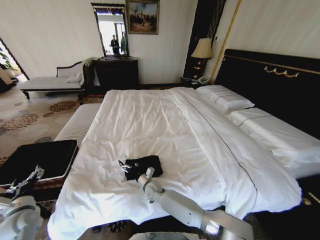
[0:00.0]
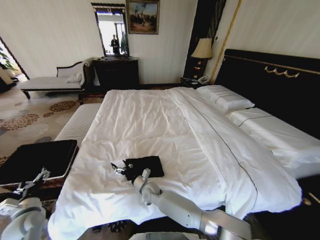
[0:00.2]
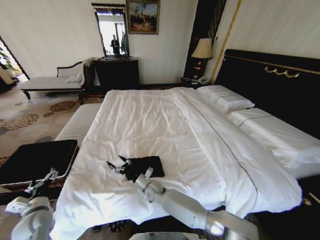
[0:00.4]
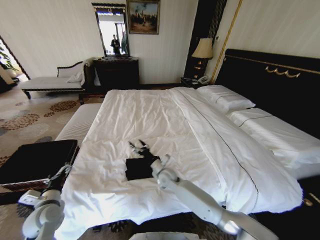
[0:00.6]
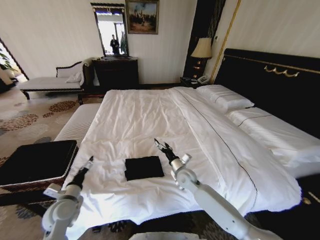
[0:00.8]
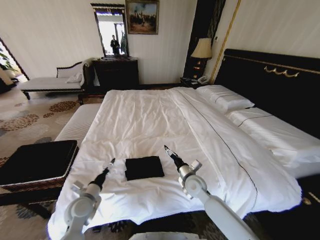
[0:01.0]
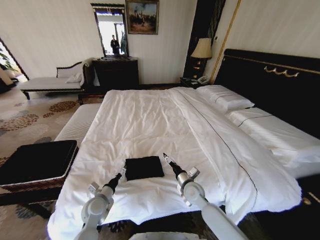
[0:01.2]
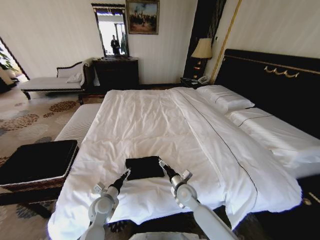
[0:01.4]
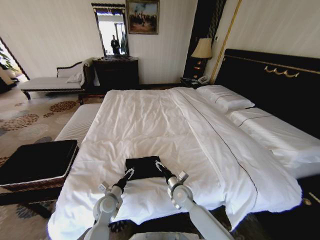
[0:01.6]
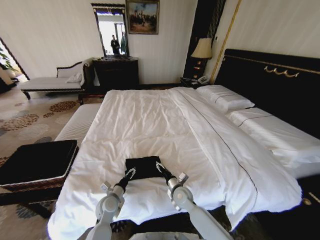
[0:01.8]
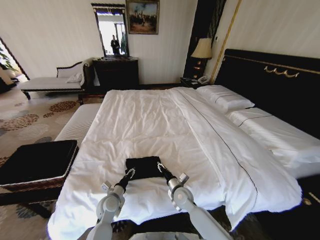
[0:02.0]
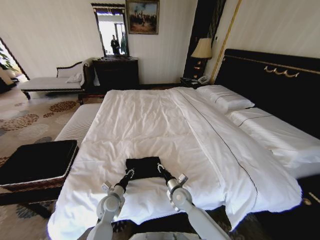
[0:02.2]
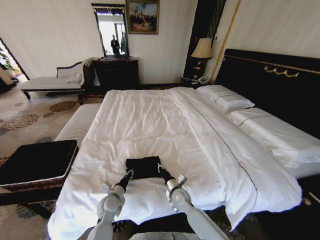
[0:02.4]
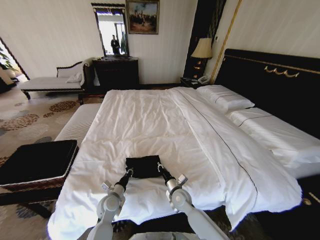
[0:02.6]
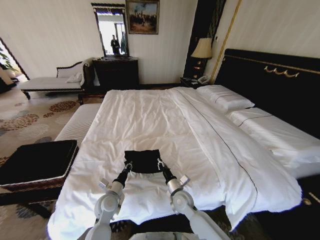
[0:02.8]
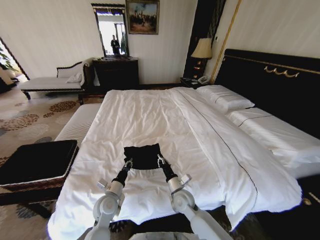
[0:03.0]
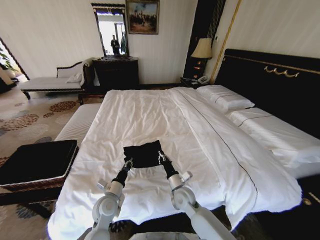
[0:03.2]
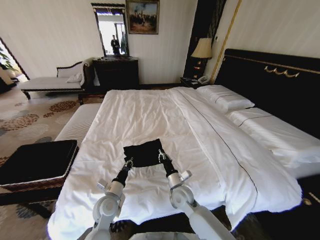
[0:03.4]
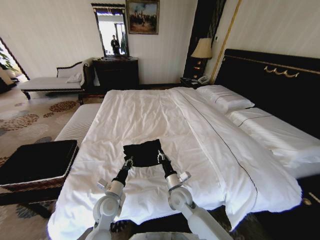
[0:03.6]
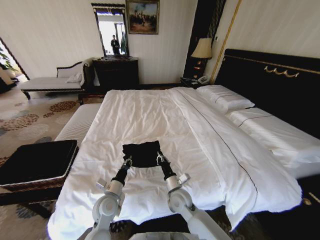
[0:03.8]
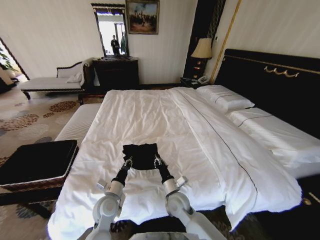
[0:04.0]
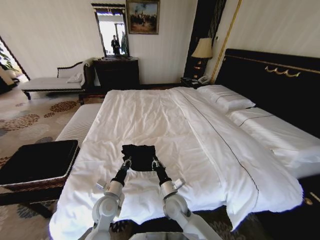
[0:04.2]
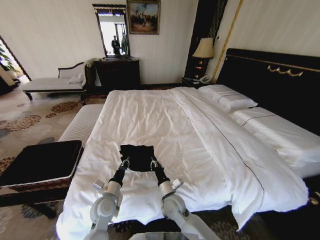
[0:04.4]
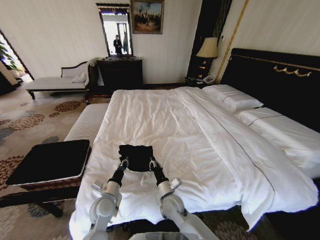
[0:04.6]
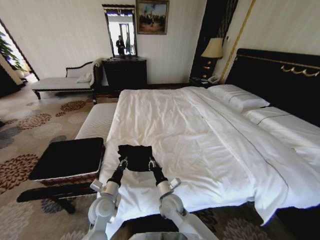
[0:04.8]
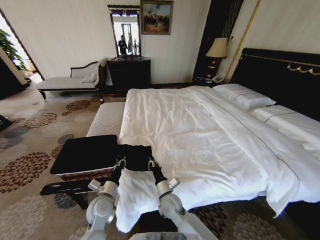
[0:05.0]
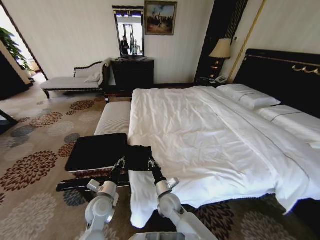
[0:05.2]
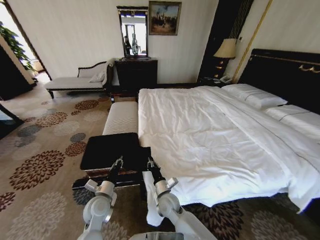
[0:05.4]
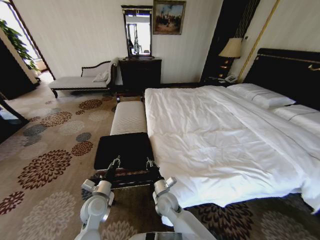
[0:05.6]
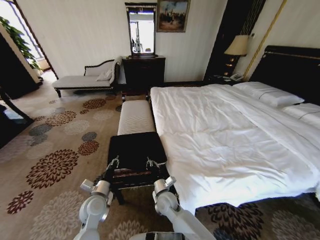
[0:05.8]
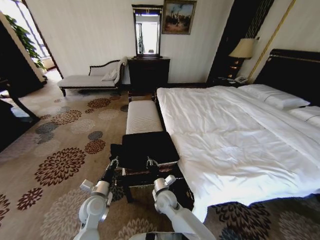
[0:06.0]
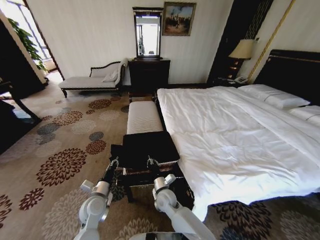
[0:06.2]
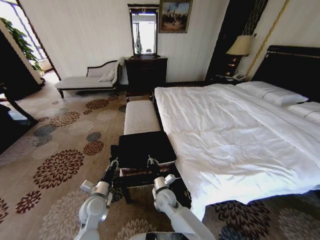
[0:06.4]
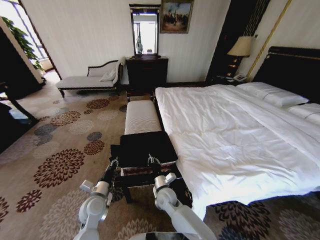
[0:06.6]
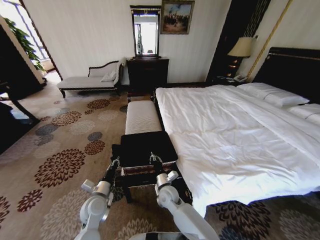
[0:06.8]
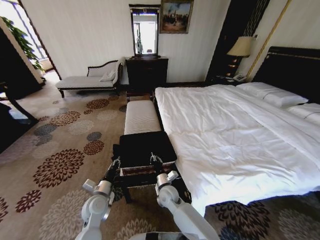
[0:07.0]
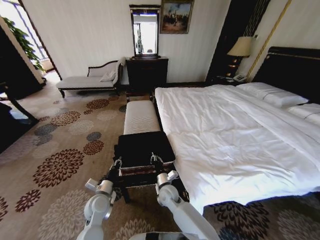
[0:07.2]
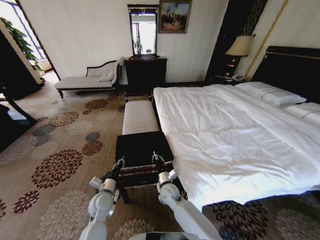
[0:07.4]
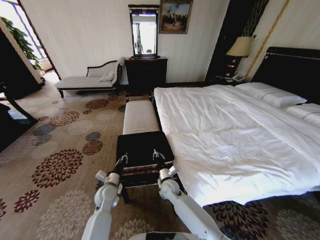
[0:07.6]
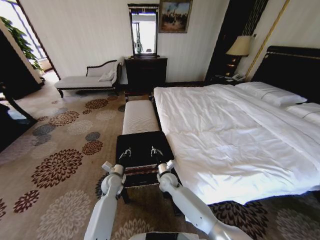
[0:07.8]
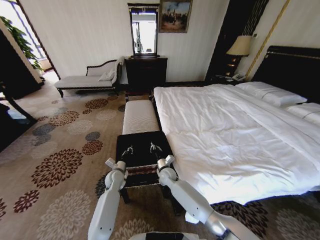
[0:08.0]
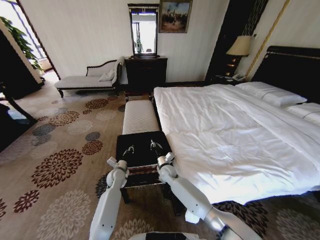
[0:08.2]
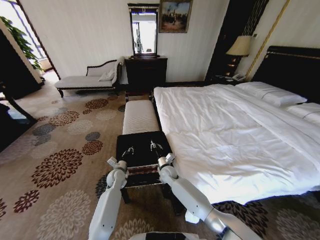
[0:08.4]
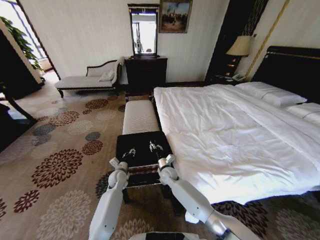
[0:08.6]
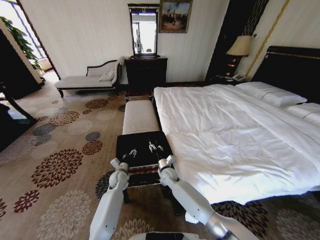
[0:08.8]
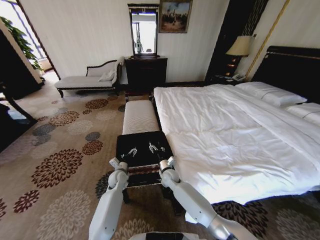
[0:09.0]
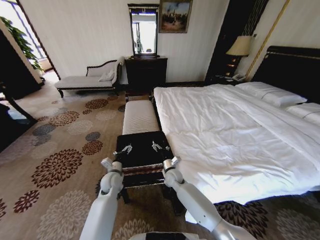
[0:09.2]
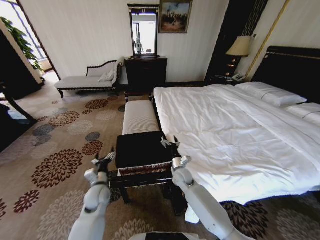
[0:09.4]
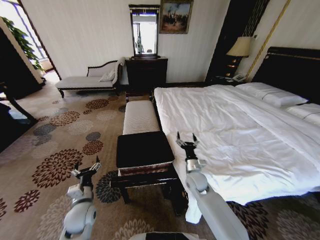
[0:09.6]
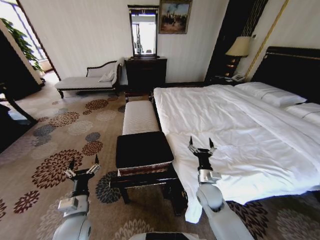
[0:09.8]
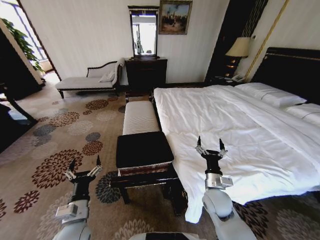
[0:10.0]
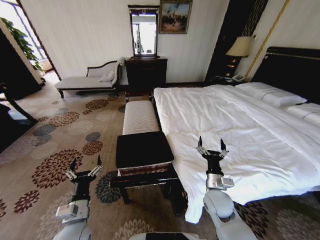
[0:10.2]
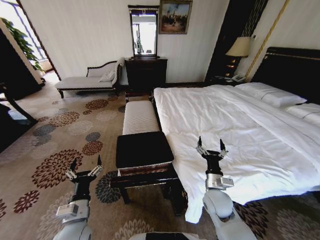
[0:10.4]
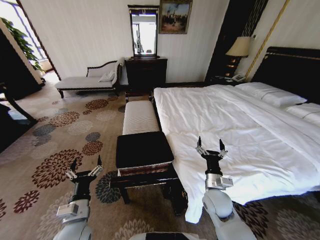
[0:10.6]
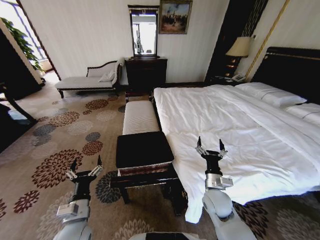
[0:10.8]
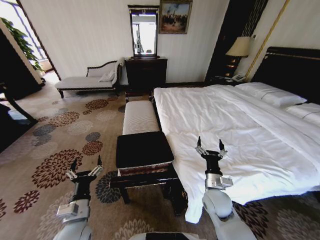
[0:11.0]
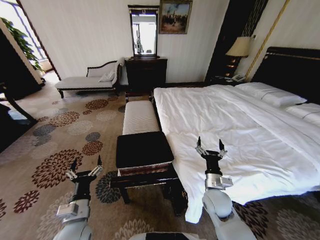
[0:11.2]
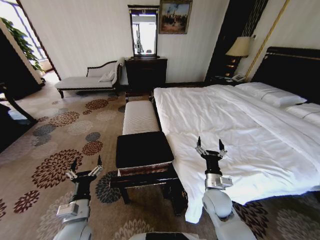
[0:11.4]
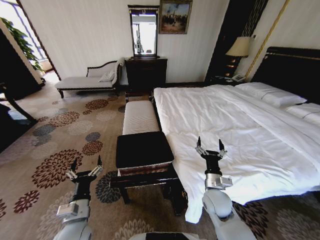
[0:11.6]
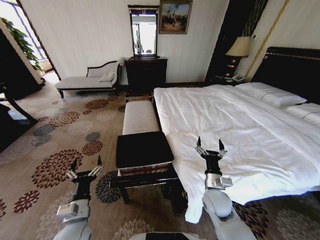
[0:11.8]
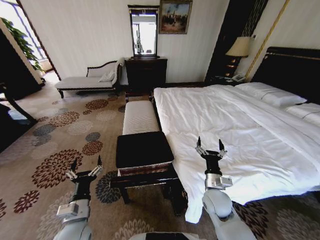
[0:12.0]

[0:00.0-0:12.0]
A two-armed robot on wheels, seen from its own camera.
Task of the whole recording: Fold the clothes on the bed and place them into the basket.
0:00.0 to 0:01.6: The right gripper shifts some 15 cm to the right. Meanwhile the left gripper heads to the right, covering some 25 cm.
0:01.6 to 0:03.0: The left gripper closes, while the right gripper closes up.
0:03.0 to 0:04.4: The right gripper changes place by roughly 5 cm.
0:06.0 to 0:07.6: Both grippers move forward, roughly 5 cm.
0:07.6 to 0:09.0: Both grippers travel together forward, about 5 cm. The left gripper opens up. Meanwhile the right gripper opens up.
0:09.0 to 0:10.4: The right gripper heads backward, to the right and upward, covering roughly 25 cm, while the left gripper is displaced backward and upward by roughly 25 cm.
0:10.4 to 0:12.0: Both grippers stay put.
